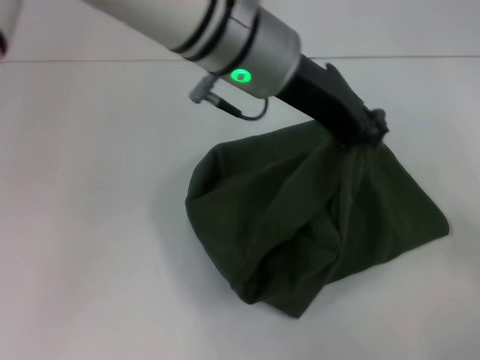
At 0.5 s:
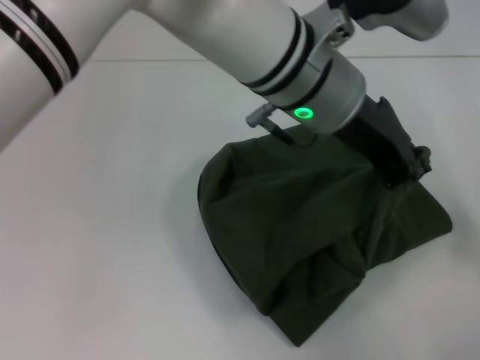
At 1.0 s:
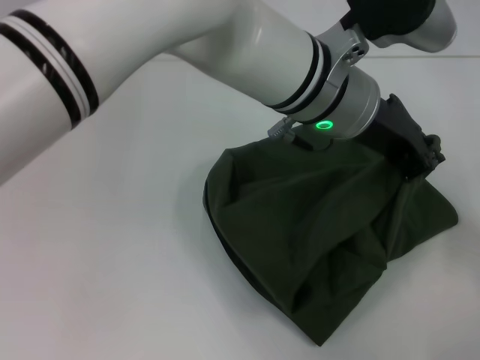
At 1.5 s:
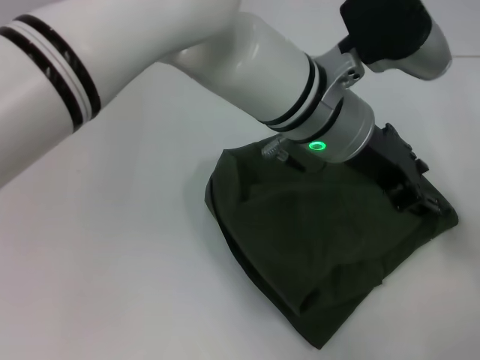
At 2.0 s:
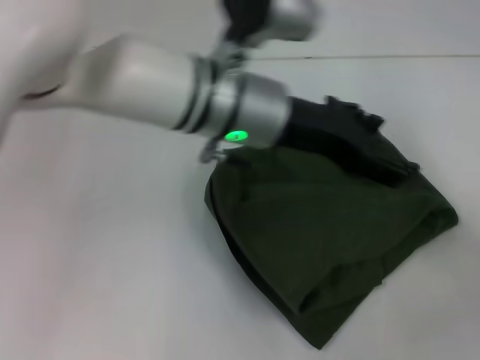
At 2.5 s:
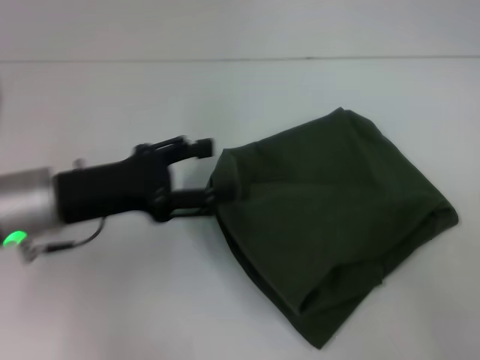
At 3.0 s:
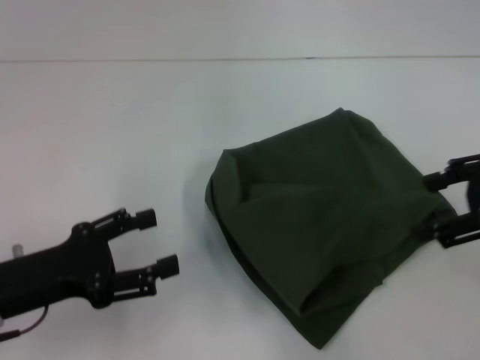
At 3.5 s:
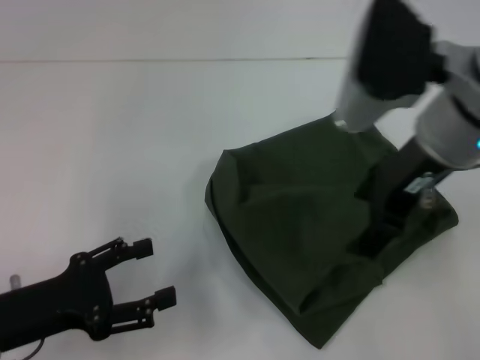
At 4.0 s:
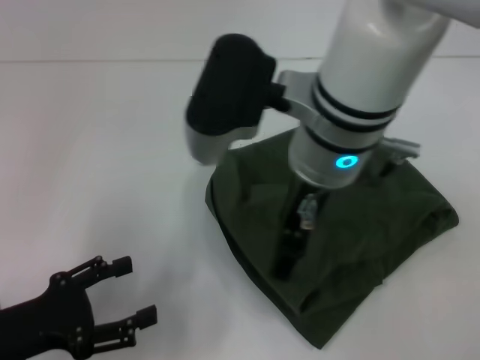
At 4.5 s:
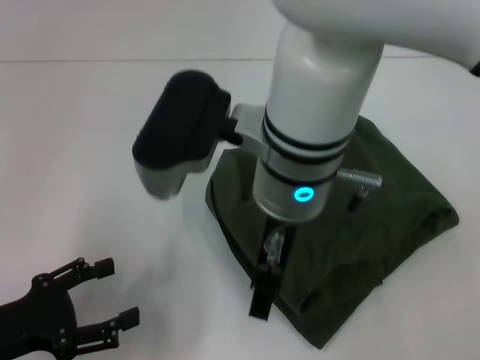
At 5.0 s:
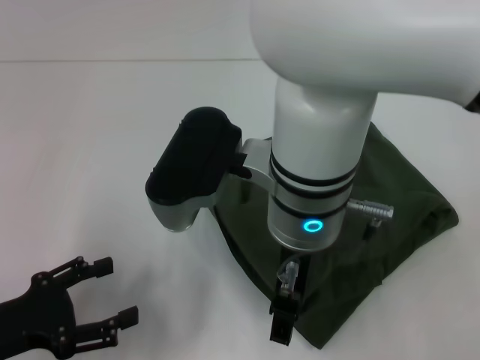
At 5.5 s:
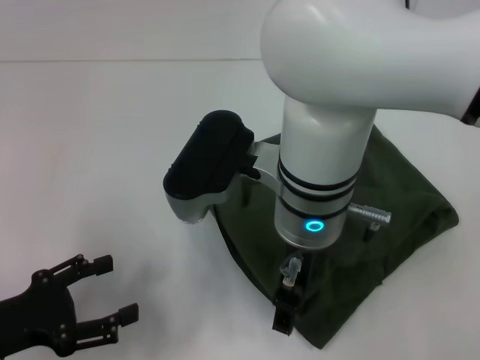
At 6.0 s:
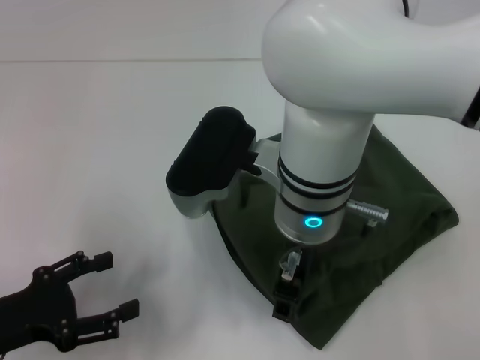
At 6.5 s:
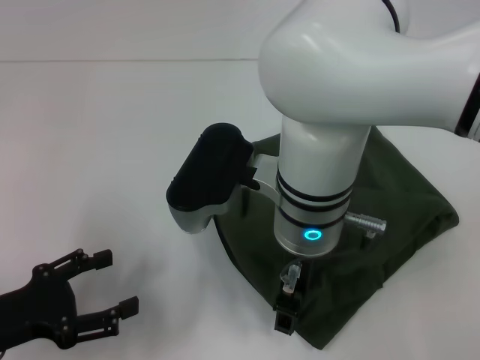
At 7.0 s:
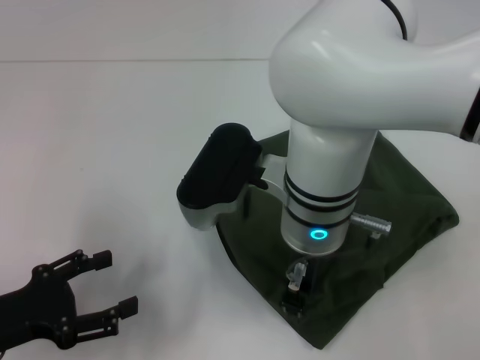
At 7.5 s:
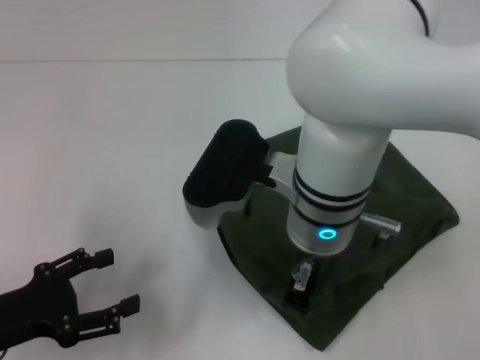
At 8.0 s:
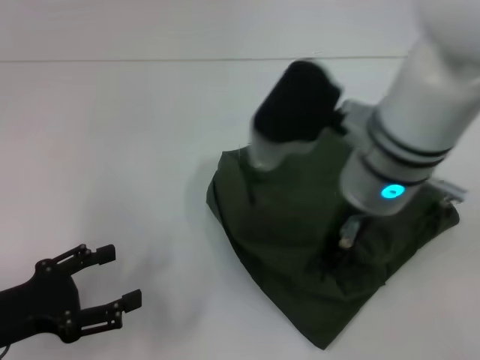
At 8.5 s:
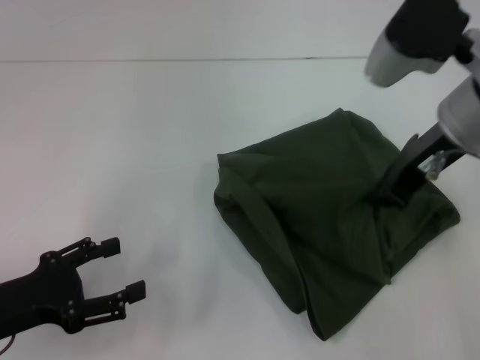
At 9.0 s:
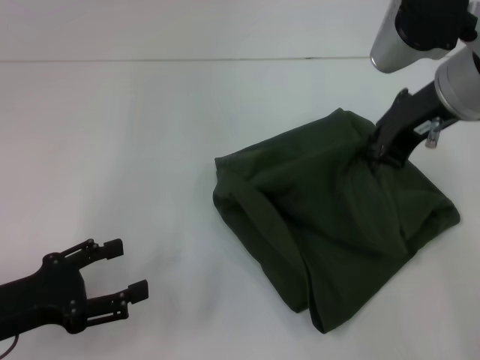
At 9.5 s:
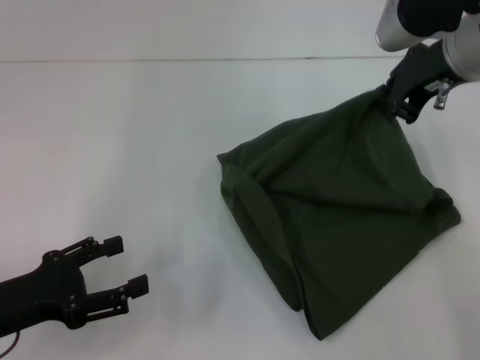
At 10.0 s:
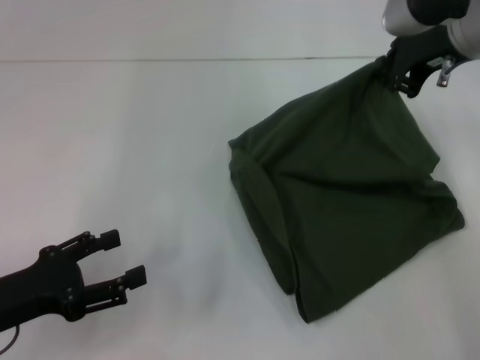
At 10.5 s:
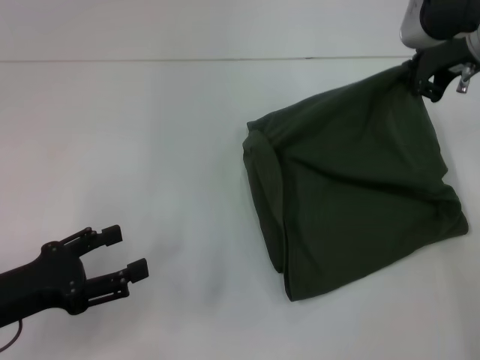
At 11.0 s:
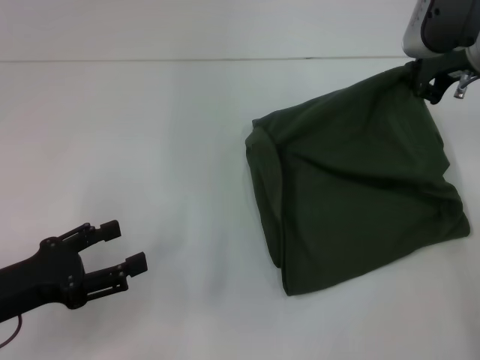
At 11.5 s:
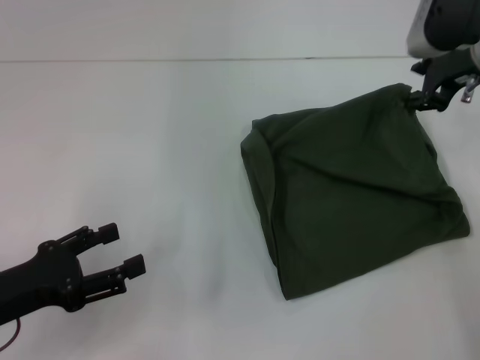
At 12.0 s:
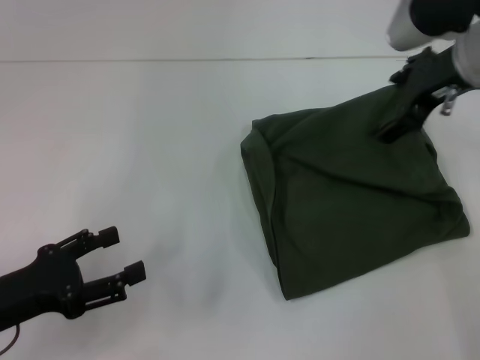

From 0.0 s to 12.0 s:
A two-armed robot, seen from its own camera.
From 0.0 s to 2.0 s: The left gripper goes approximately 5 cm downward, and opens.
From 2.0 s to 4.0 s: The right gripper shifts roughly 35 cm to the left, and opens; the left gripper is displaced to the left, backward and downward by approximately 35 cm.
From 4.0 s to 6.0 s: The right gripper moves downward, approximately 5 cm.
From 6.0 s to 8.0 s: The right gripper heads to the right, covering approximately 5 cm, and closes.
From 8.0 s to 10.0 s: The right gripper shifts approximately 15 cm to the right, forward and upward.
From 10.0 s to 12.0 s: The right gripper opens its fingers.

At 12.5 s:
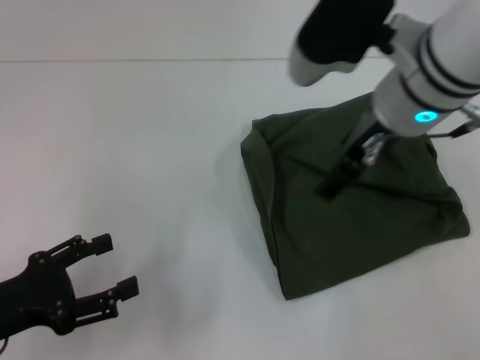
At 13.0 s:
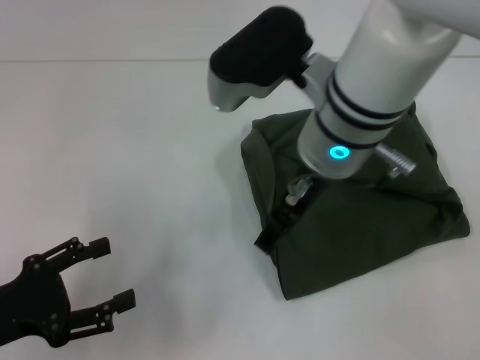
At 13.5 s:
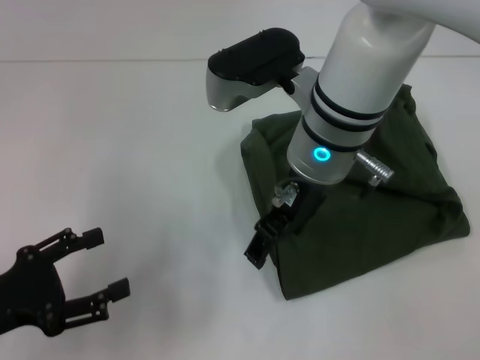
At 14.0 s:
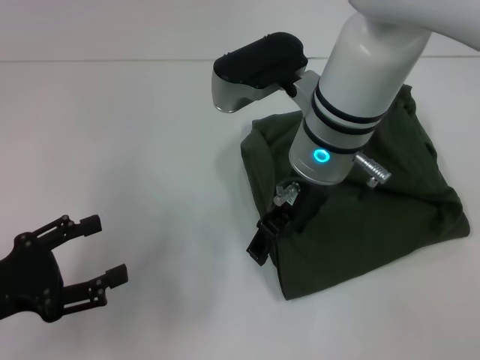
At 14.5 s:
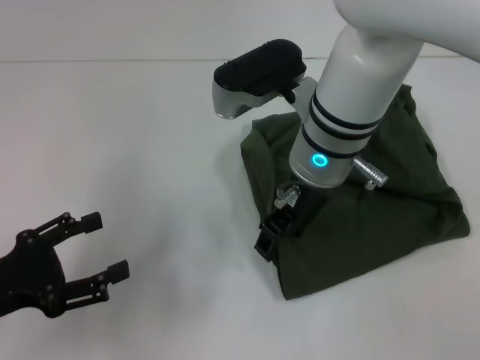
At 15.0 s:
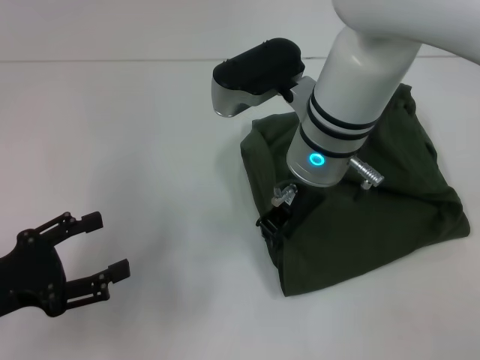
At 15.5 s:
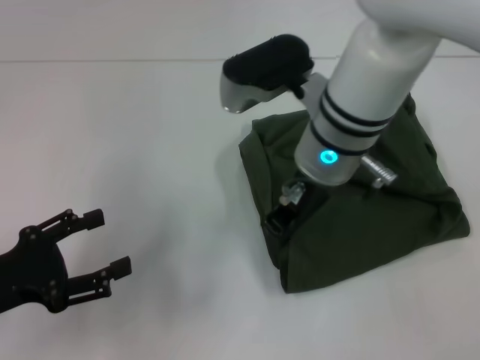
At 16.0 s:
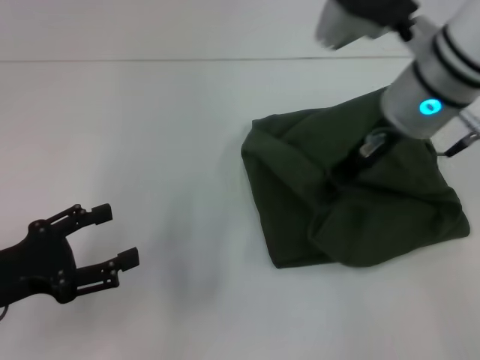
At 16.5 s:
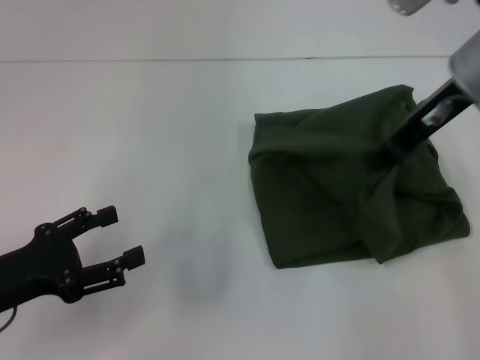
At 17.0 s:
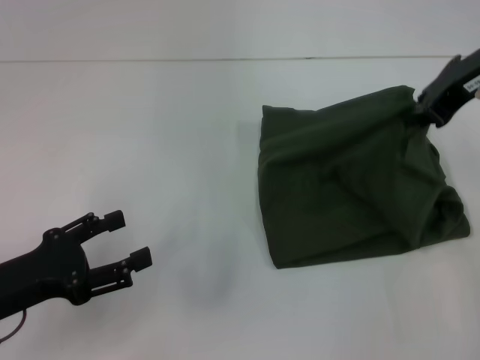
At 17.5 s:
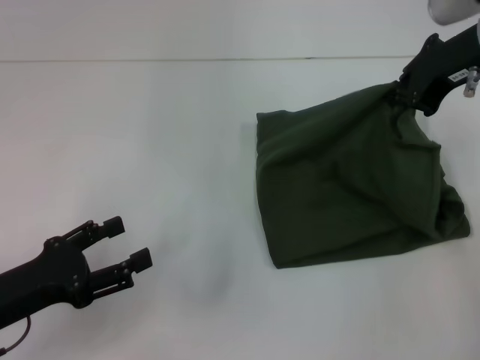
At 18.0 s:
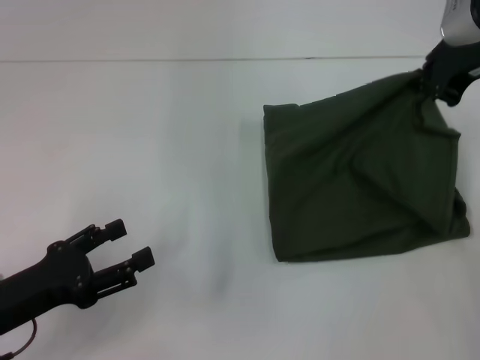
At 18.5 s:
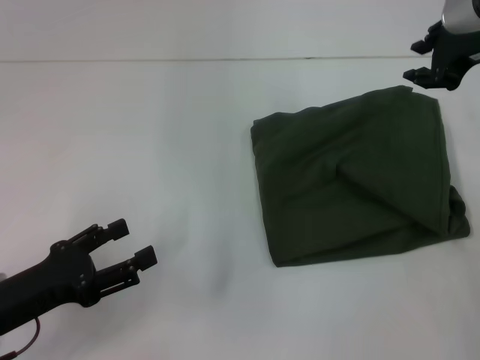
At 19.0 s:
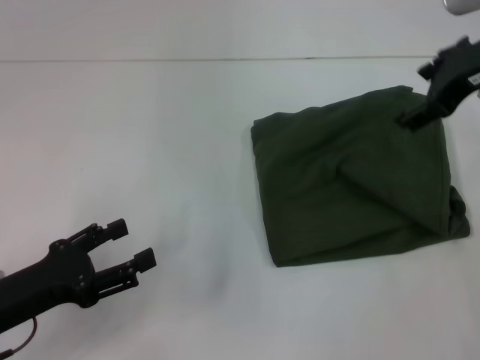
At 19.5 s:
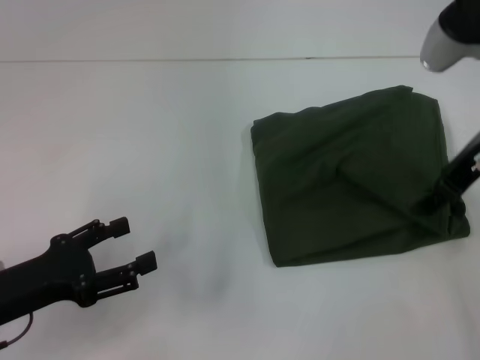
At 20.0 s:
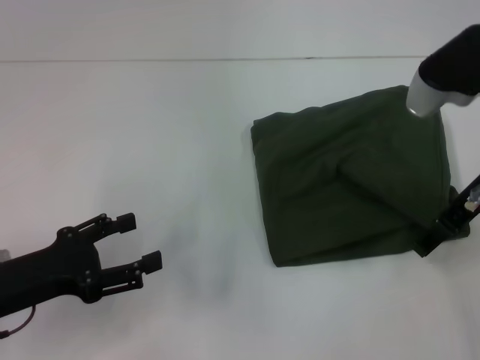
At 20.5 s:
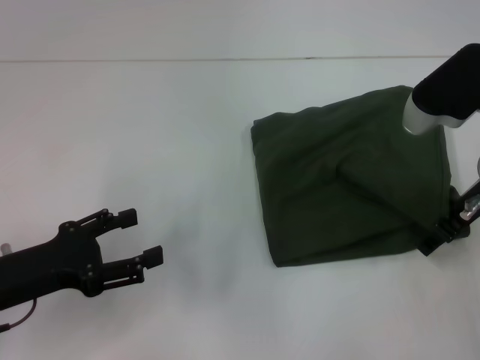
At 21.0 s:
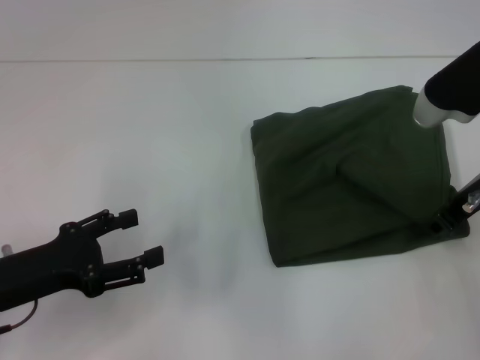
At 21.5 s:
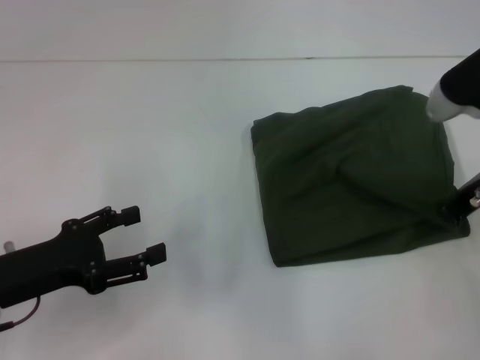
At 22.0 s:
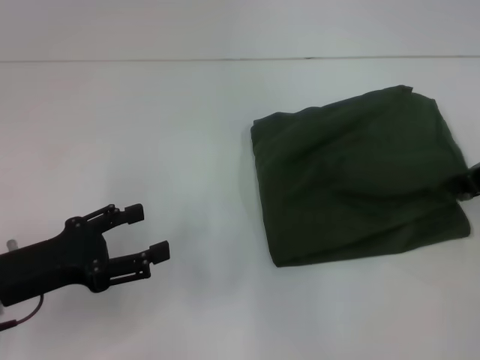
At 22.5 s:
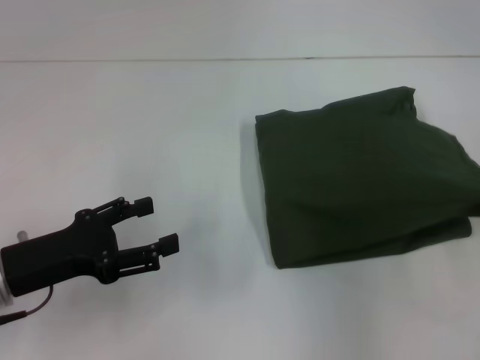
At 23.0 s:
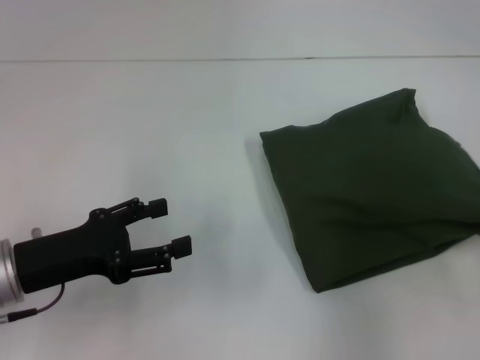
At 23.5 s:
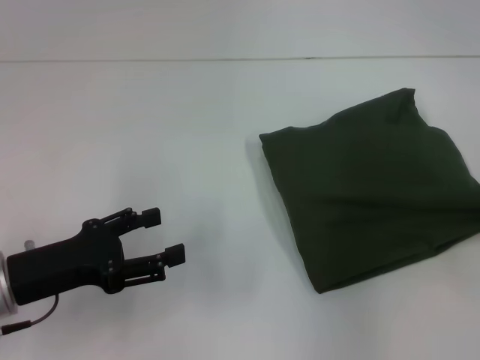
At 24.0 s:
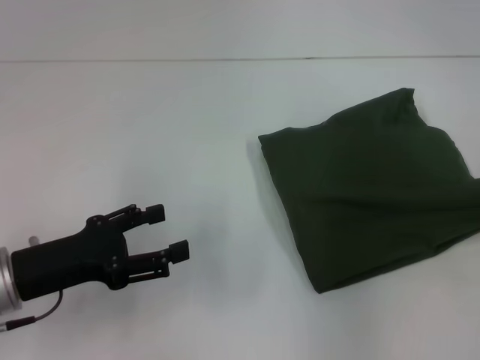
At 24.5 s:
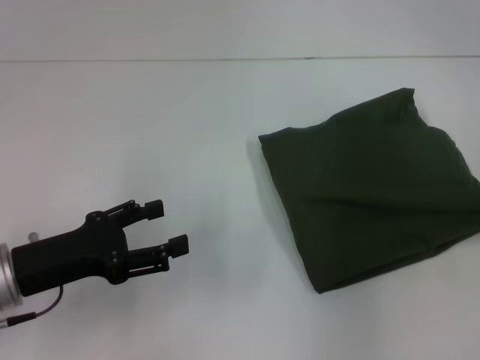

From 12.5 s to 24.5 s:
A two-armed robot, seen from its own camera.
From 12.5 s to 14.5 s: The right gripper is displaced downward and to the left by roughly 10 cm.
From 14.5 s to 16.5 s: The right gripper heads to the right and upward, covering approximately 15 cm, and closes up.
From 16.5 s to 18.5 s: The right gripper changes place by some 5 cm.
From 18.5 s to 20.5 s: The right gripper moves backward and downward, approximately 10 cm, and opens its fingers.
From 20.5 s to 22.5 s: The right gripper heads to the right, covering about 10 cm, and closes its fingers.
From 22.5 s to 24.5 s: The right gripper moves approximately 5 cm, and opens up.

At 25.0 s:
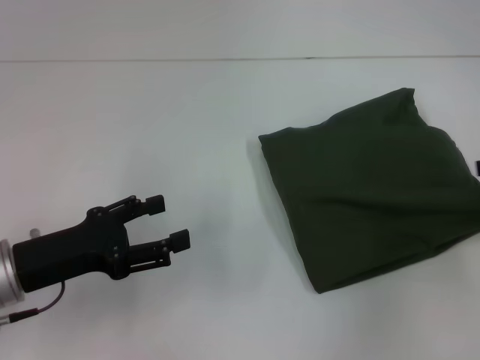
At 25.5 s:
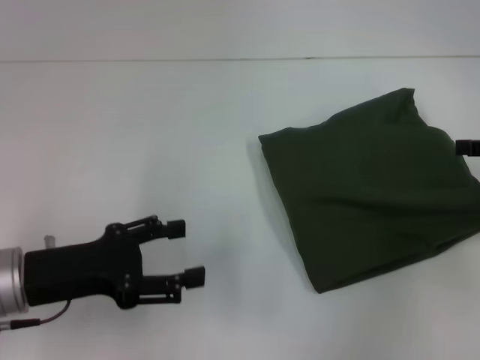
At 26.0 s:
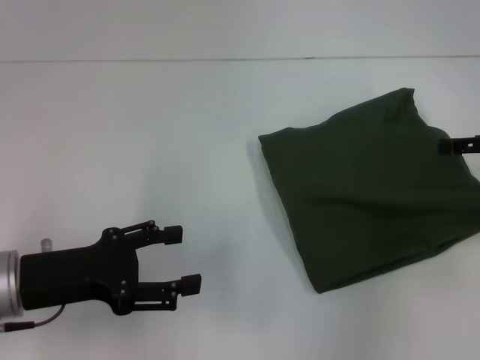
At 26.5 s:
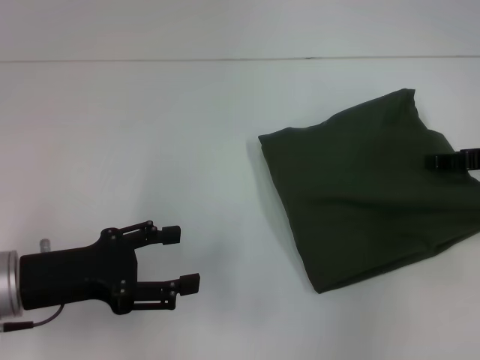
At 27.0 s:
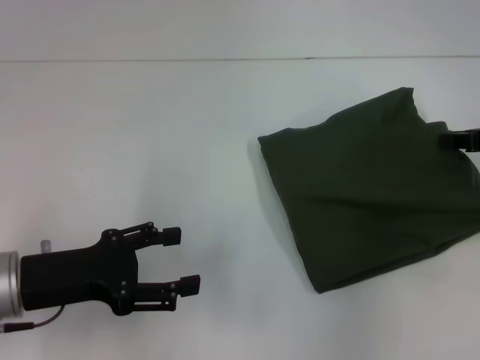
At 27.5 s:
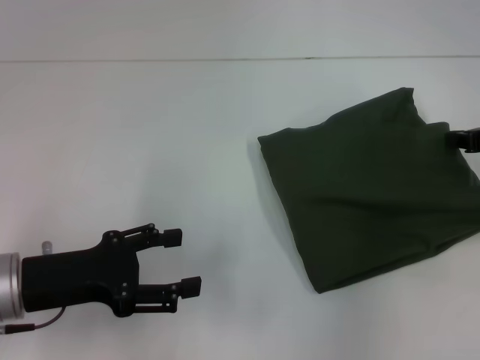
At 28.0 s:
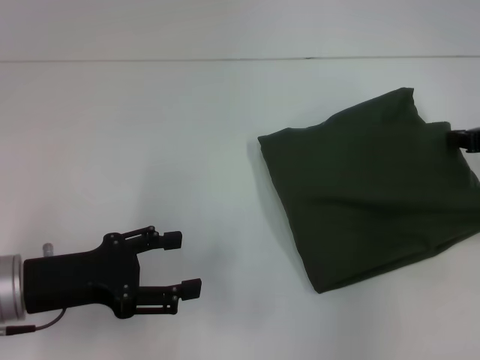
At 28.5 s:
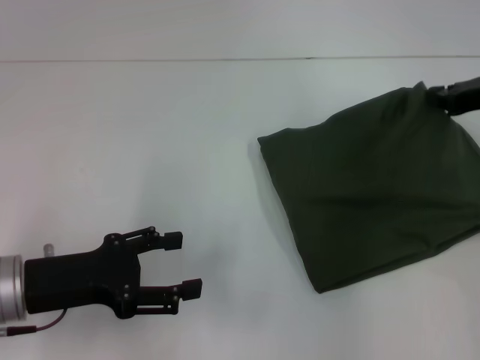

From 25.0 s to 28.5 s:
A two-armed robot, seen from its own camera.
From 25.0 s to 27.0 s: The right gripper changes place by approximately 5 cm, and closes up.
From 27.0 s to 28.5 s: The right gripper closes its fingers.
